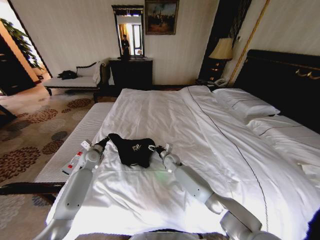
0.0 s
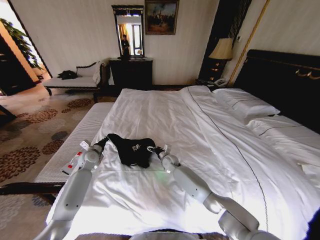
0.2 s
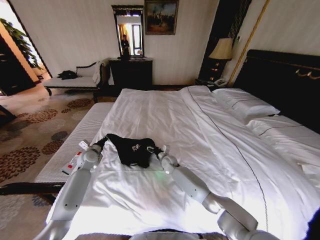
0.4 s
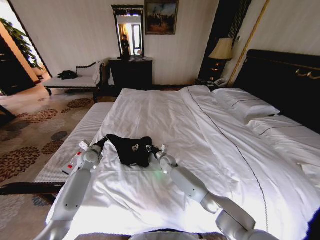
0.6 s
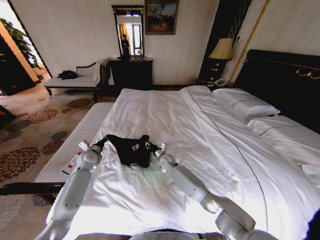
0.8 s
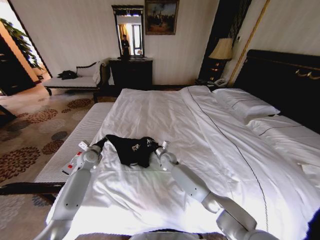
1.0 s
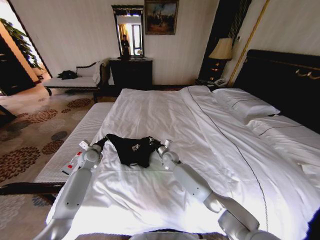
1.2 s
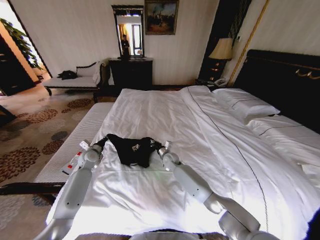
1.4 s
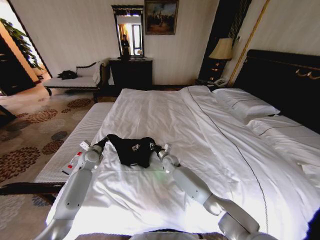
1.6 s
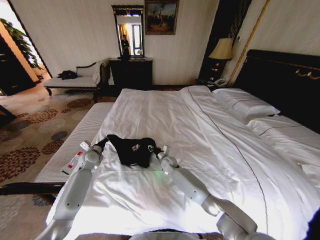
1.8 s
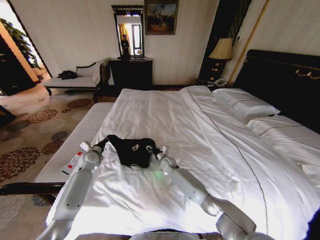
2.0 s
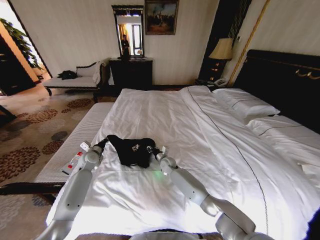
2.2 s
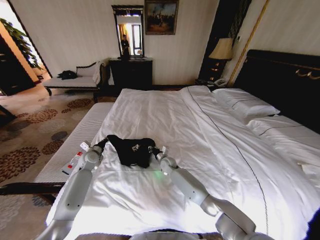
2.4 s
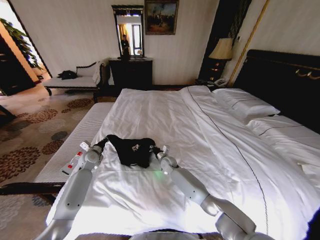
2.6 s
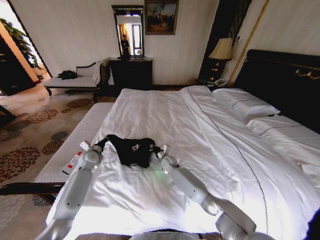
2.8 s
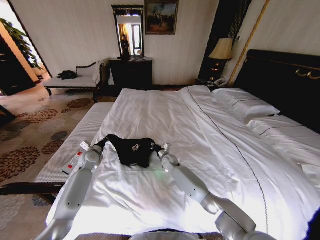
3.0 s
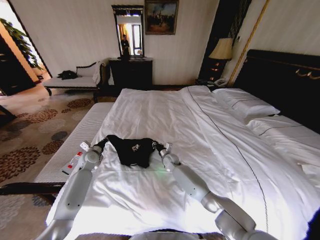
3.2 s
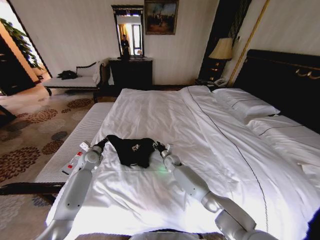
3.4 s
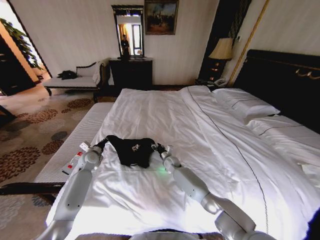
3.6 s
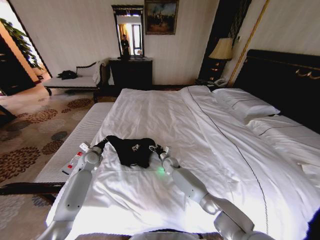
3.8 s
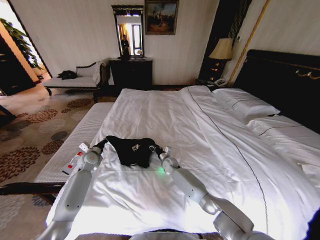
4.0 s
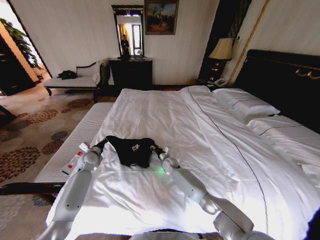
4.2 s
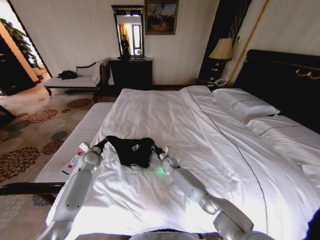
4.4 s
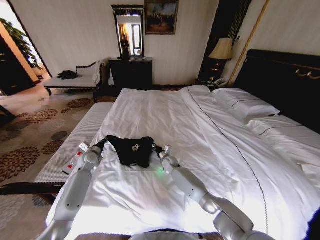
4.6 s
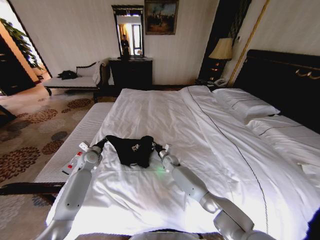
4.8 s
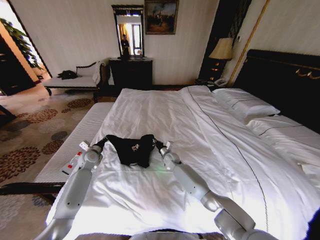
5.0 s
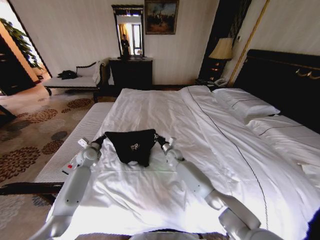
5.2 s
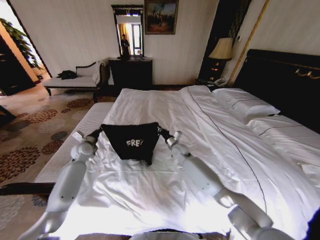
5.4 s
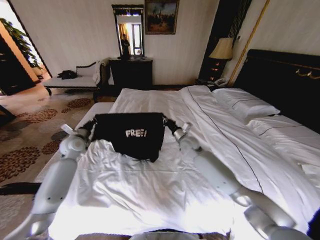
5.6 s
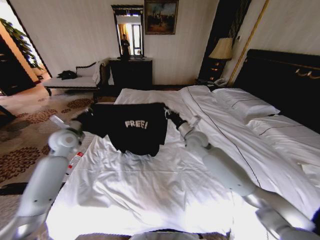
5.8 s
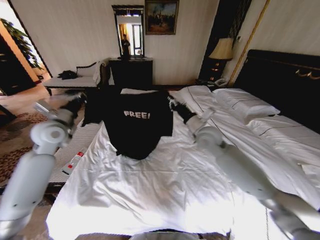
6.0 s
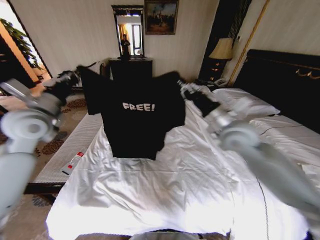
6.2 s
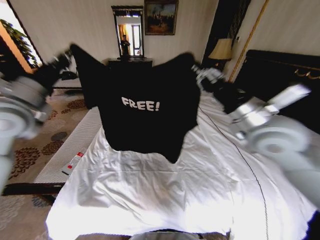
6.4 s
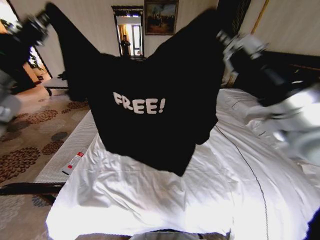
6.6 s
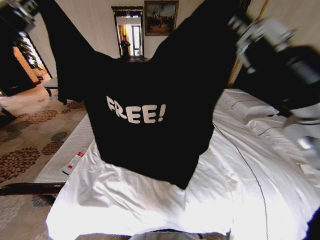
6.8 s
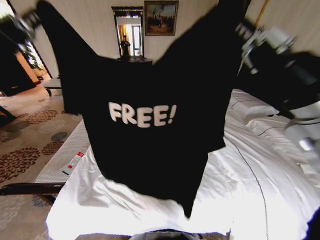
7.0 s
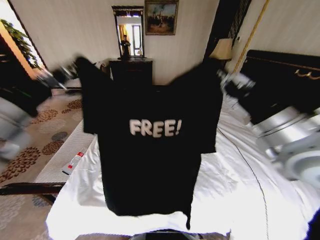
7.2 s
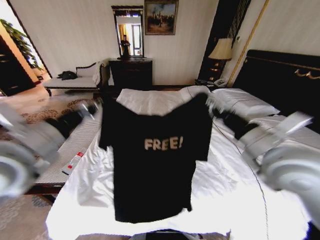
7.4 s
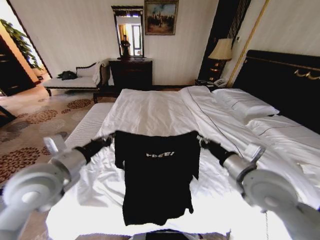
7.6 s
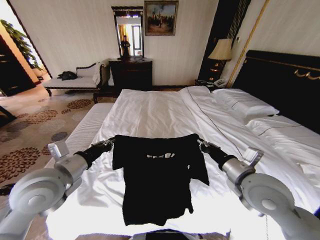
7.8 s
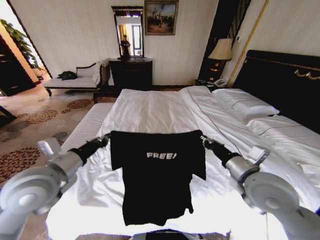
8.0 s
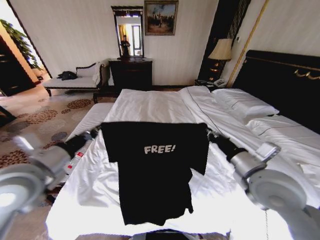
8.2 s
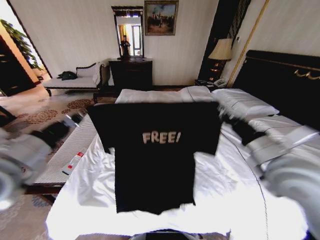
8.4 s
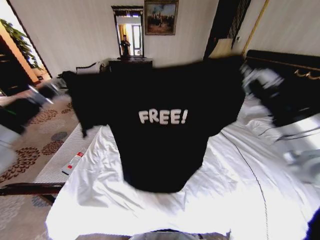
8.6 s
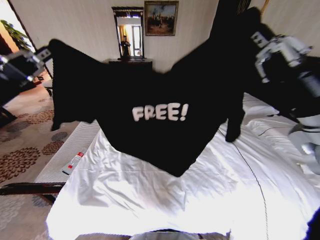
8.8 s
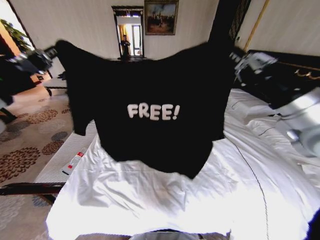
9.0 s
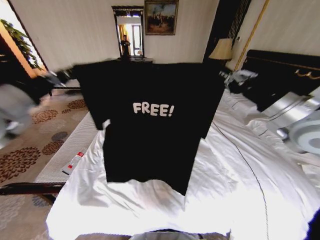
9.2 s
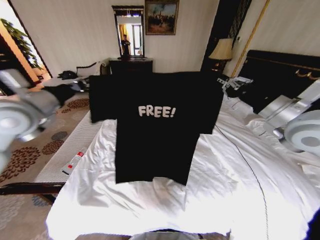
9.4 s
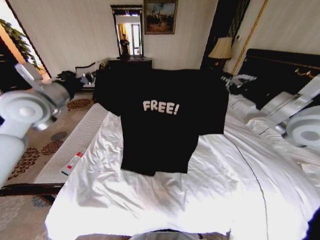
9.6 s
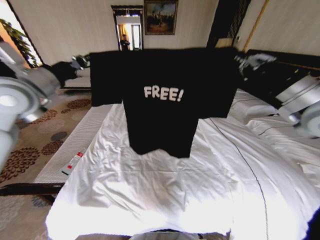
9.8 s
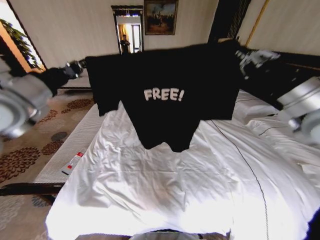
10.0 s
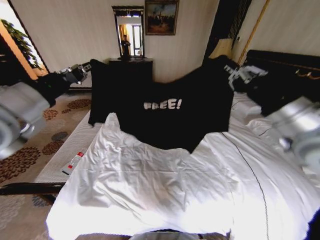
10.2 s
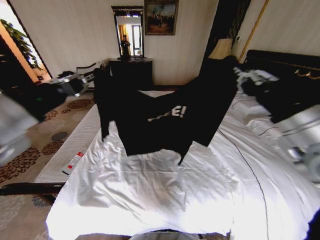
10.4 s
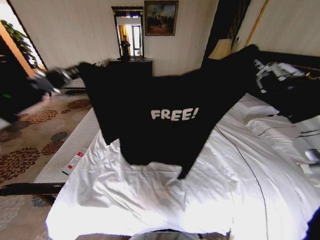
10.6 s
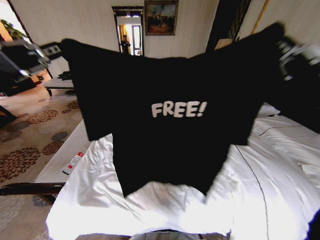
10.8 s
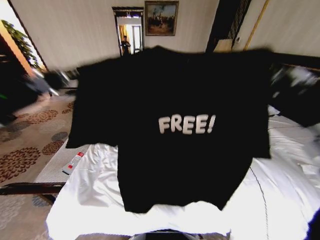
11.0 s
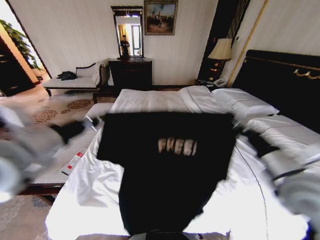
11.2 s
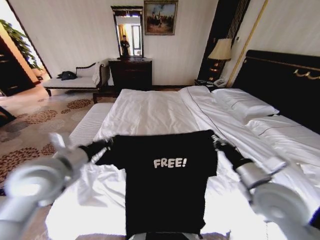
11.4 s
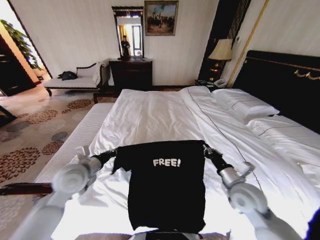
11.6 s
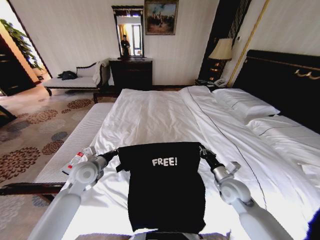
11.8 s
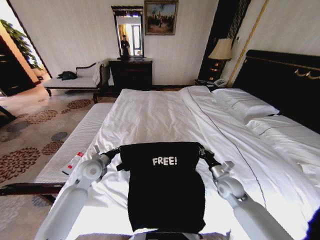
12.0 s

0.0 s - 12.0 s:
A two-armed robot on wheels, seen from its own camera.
Task of the whole recording: Fold the clothes on the bed.
0.0 s - 1.6 s: The right gripper closes.
1.6 s - 3.0 s: The right gripper opens, then closes again.
3.0 s - 4.4 s: The right gripper opens, then closes again.
4.4 s - 6.0 s: The grippers both shift upward by about 30 cm.
6.0 s - 7.6 s: The left gripper is displaced backward and to the right by roughly 20 cm; the right gripper heads backward, covering roughly 20 cm.
7.6 s - 9.0 s: The left gripper moves upward and to the left, approximately 15 cm; the right gripper moves upward, approximately 15 cm.
9.0 s - 10.4 s: The left gripper reaches some 15 cm forward, then returns.
10.4 s - 12.0 s: The right gripper shifts some 35 cm downward. The left gripper shifts about 35 cm downward and forward.

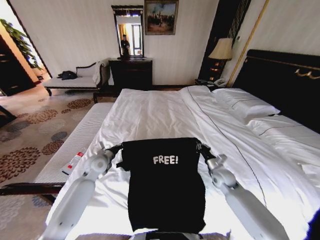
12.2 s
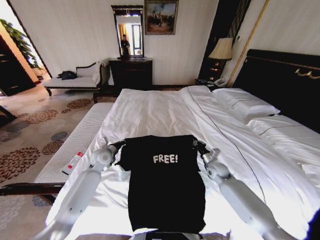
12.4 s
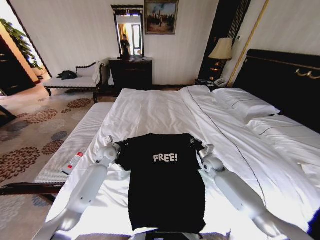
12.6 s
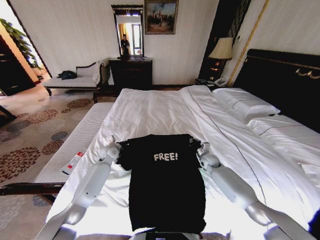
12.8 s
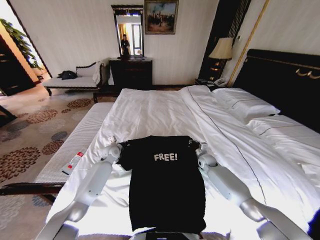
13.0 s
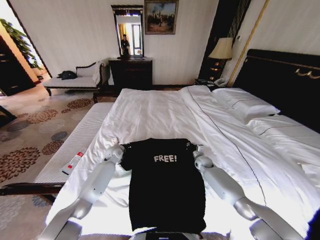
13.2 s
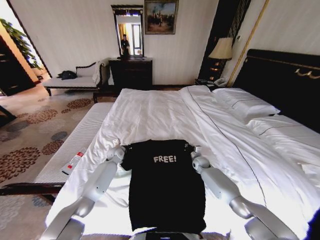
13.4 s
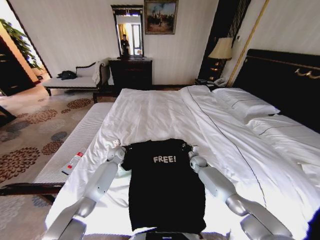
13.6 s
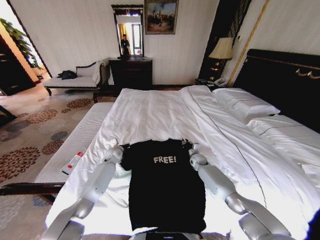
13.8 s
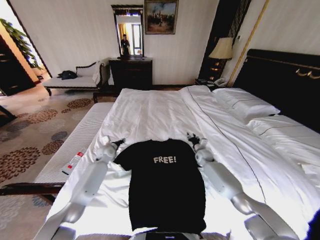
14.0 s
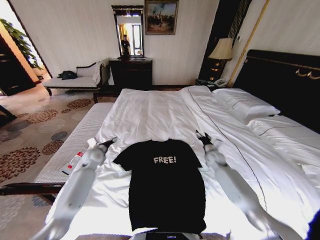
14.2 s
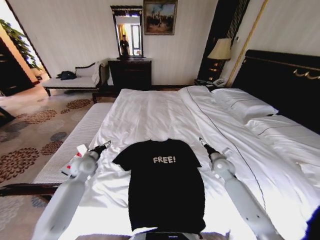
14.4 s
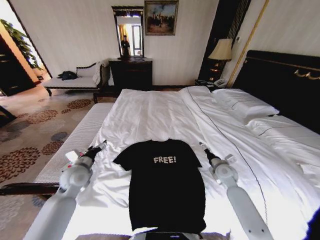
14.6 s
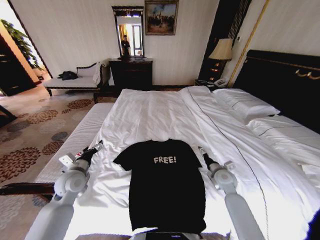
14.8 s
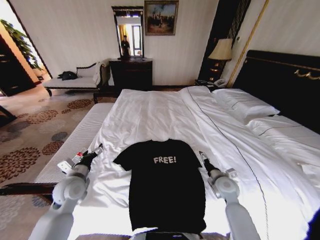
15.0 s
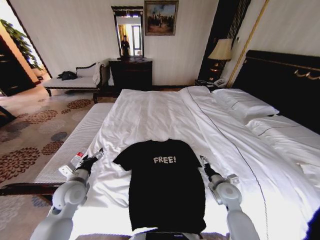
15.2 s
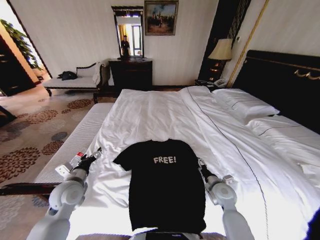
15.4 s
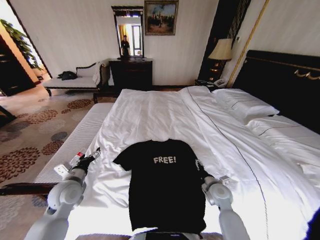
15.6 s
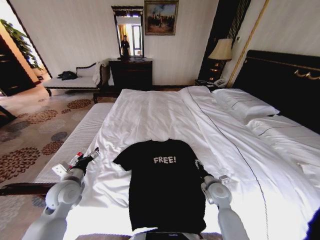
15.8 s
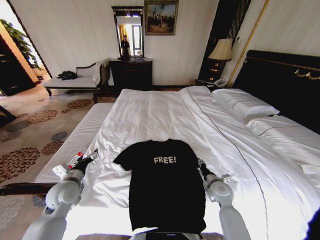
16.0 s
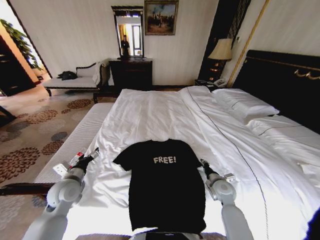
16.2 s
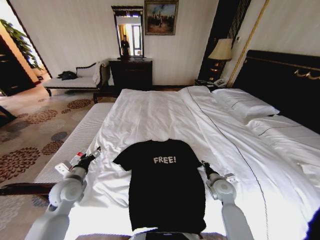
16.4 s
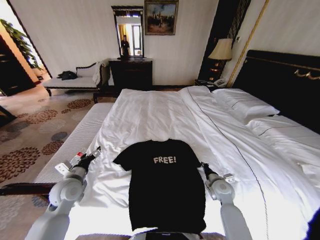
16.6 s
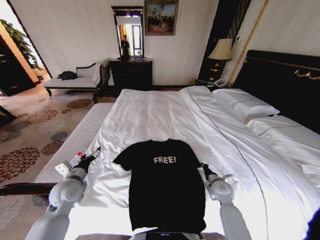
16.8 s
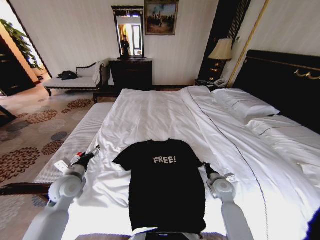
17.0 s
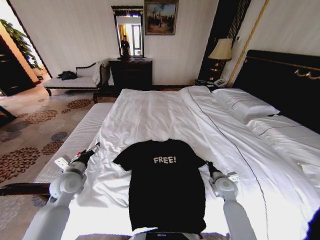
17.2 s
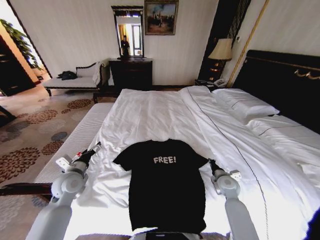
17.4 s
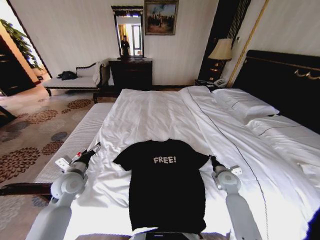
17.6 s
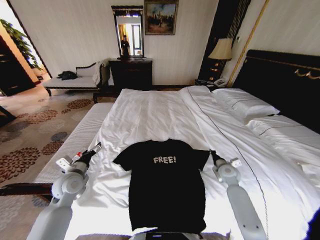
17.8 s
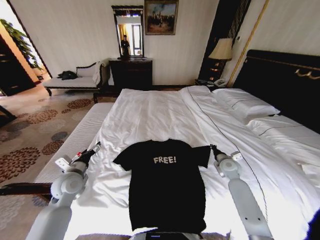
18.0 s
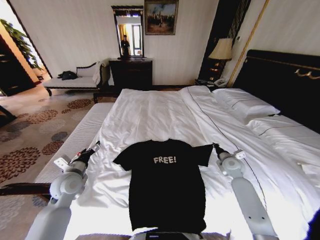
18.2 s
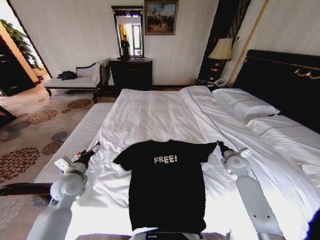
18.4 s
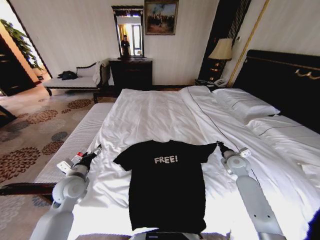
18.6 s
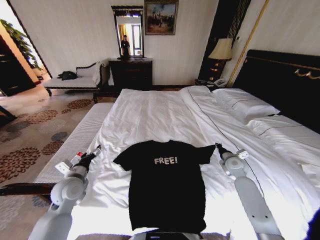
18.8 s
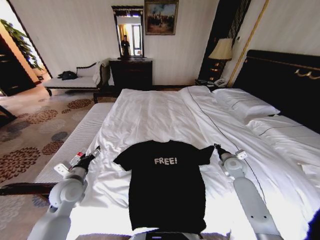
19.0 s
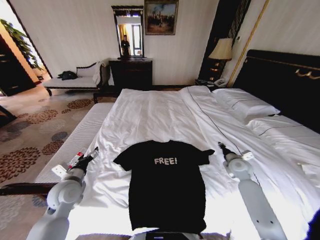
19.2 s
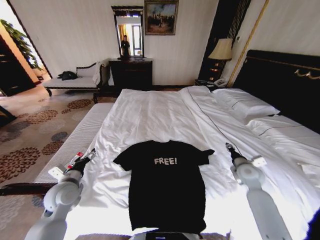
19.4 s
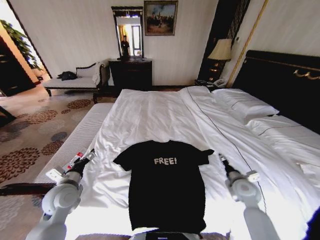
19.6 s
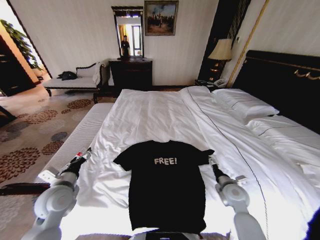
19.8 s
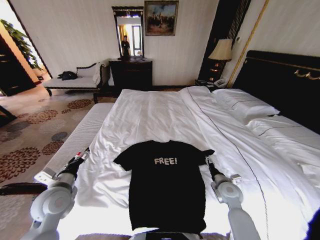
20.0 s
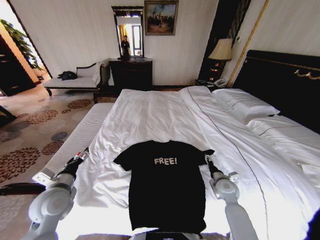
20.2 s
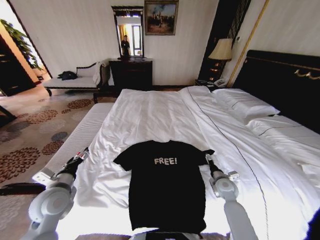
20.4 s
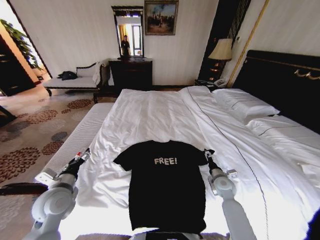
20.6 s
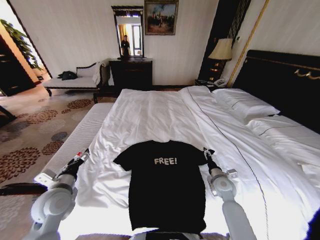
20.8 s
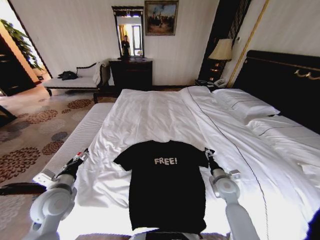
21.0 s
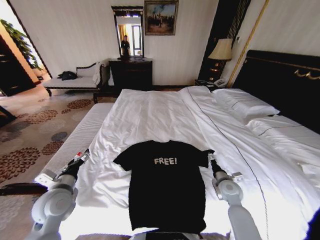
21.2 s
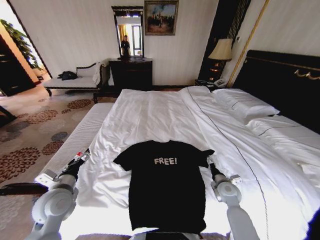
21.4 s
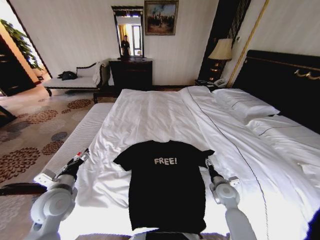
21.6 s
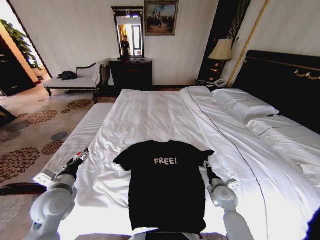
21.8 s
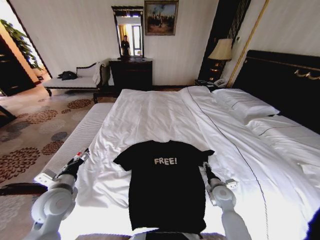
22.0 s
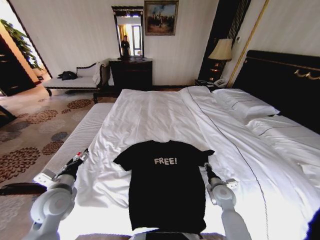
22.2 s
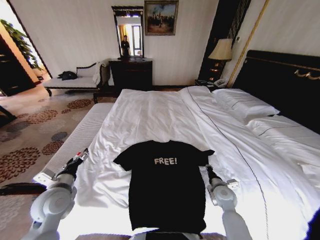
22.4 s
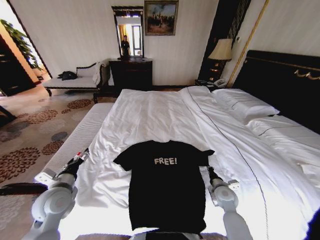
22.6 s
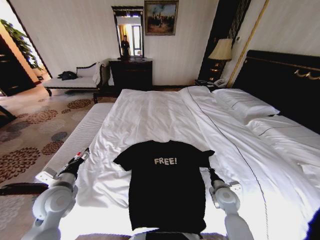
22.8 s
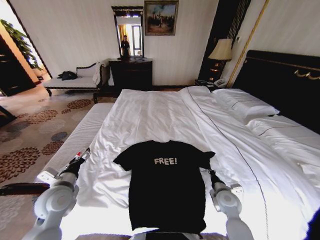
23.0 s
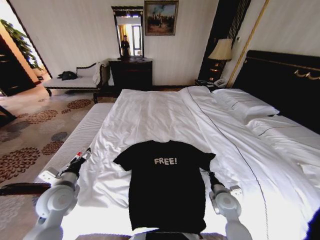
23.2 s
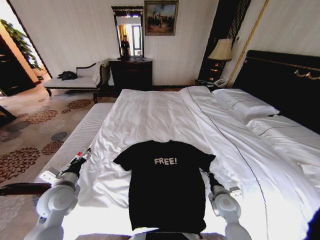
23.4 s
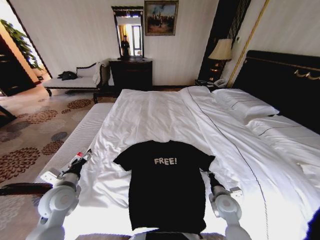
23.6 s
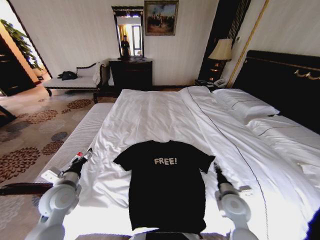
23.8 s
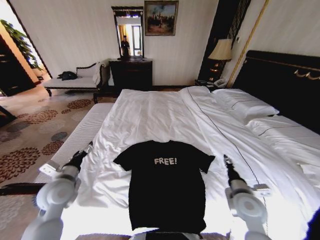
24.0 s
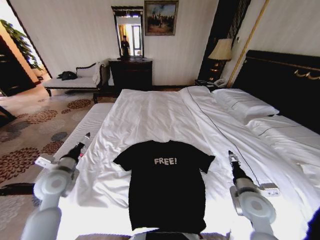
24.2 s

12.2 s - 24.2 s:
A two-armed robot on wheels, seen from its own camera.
Task of the whole recording: Fold the clothes on the bed.
12.2 s - 13.8 s: The grippers both shift forward and downward by some 15 cm.
13.8 s - 15.2 s: The grippers both shift backward by about 25 cm. The left gripper opens up, while the right gripper opens.
15.2 s - 16.6 s: The right gripper closes its fingers.
16.6 s - 18.2 s: The right gripper is displaced forward, to the right and upward by about 15 cm.
18.2 s - 19.8 s: The right gripper travels backward and to the left by roughly 15 cm, and opens. Meanwhile the left gripper travels backward by roughly 5 cm.
21.2 s - 22.6 s: The right gripper closes its fingers.
22.6 s - 24.2 s: The right gripper travels upward and backward by approximately 15 cm, and opens up. Meanwhile the left gripper goes about 5 cm forward.
